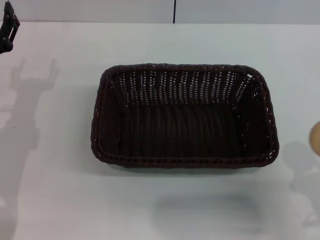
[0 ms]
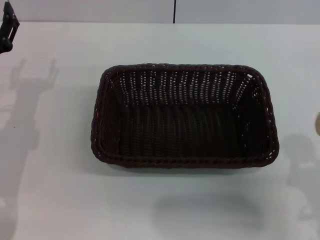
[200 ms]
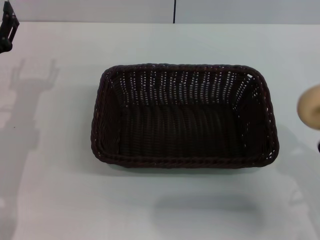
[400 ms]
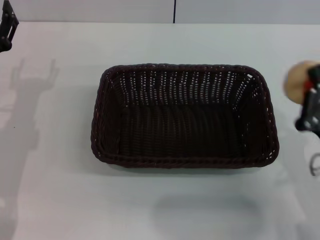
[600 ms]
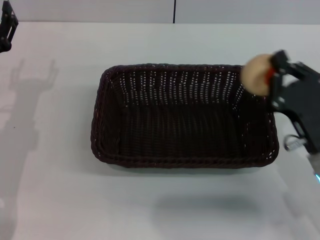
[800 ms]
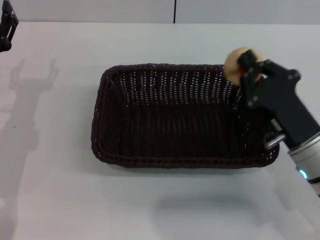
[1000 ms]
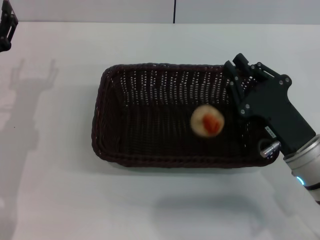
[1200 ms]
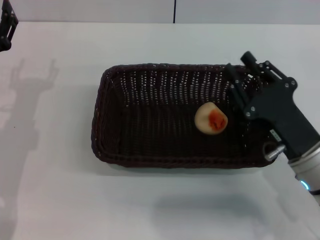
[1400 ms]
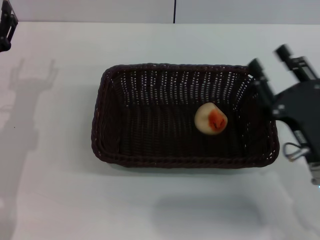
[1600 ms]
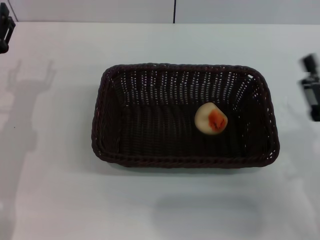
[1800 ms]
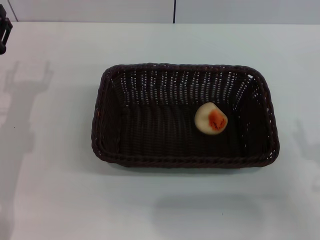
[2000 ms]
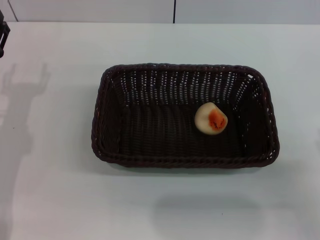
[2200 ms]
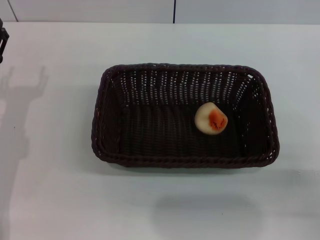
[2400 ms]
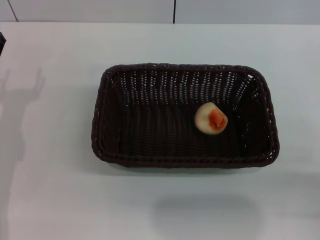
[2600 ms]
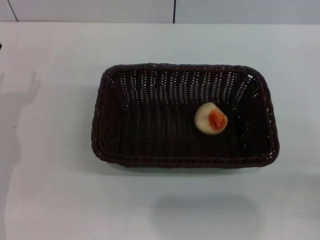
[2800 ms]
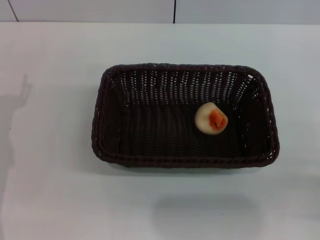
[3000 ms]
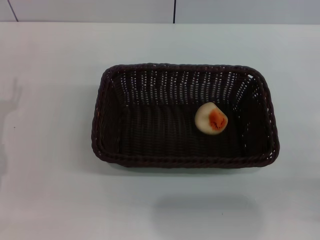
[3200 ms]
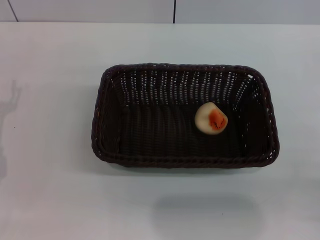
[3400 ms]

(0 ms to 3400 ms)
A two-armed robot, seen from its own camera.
Step, 0 ms - 1200 ms: Place the egg yolk pastry into the basket with the right gripper.
0 ms - 1600 ms: The right gripper is displaced forward by about 10 cm, and opens its fingers.
1600 ms - 3400 ms: The right gripper heads to the right and backward, covering roughly 15 cm, and opens its fingers, while the left gripper shifts some 5 cm backward.
